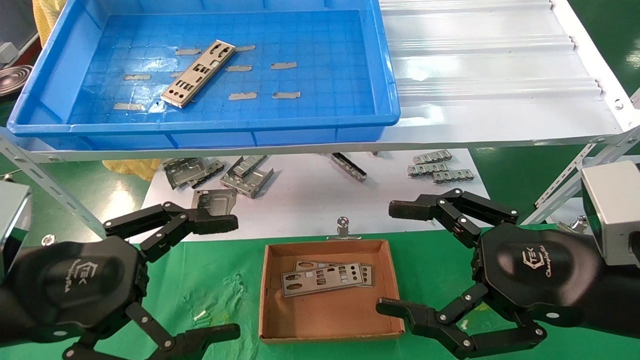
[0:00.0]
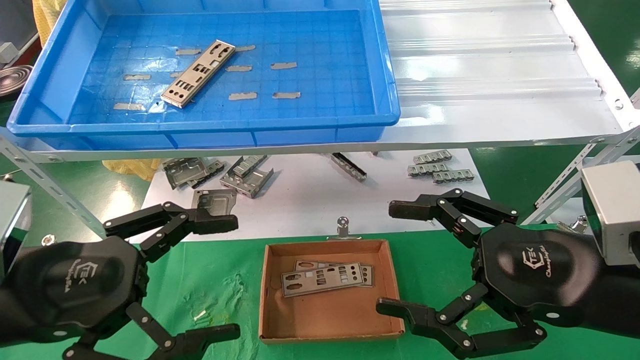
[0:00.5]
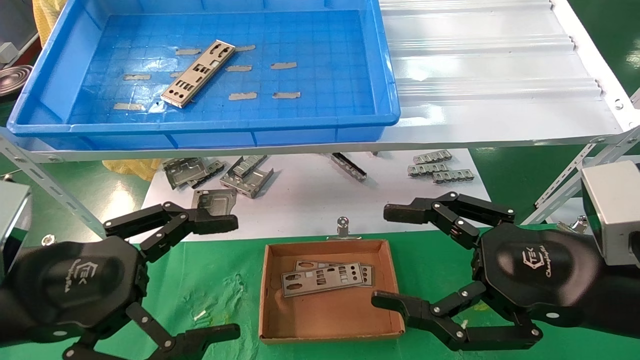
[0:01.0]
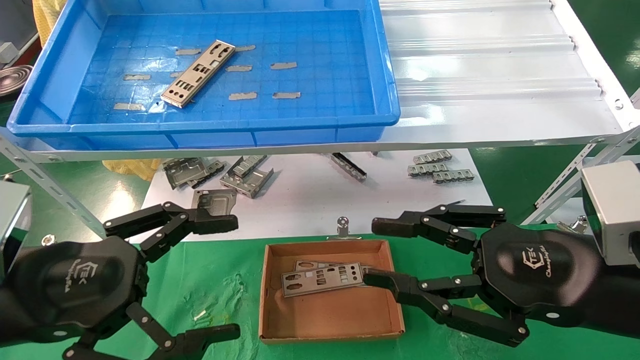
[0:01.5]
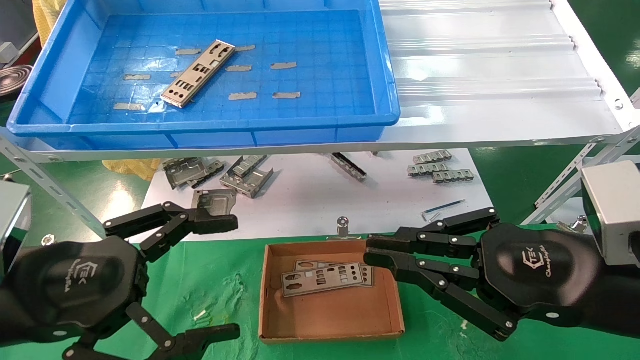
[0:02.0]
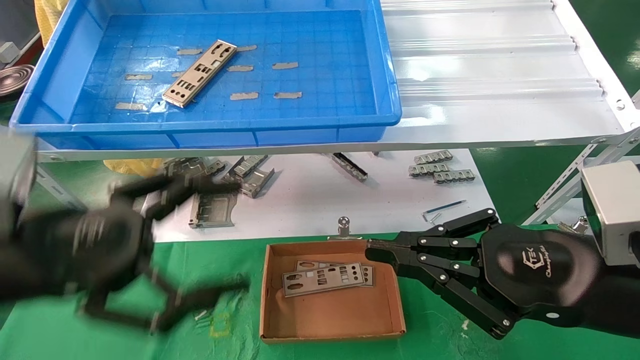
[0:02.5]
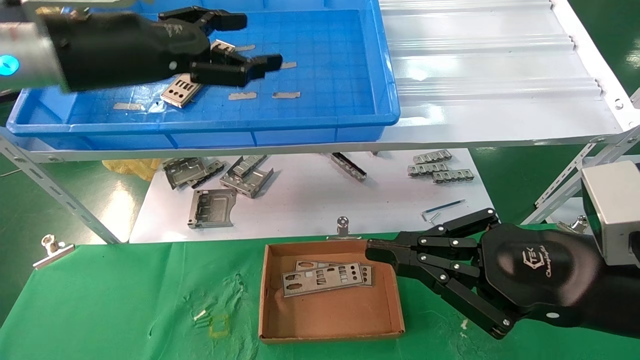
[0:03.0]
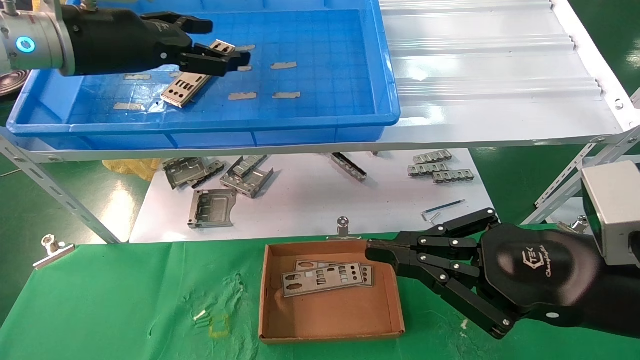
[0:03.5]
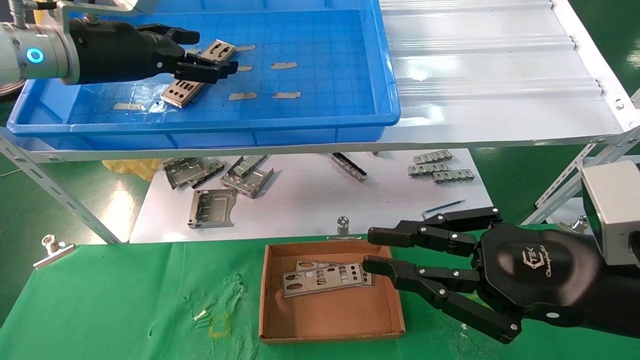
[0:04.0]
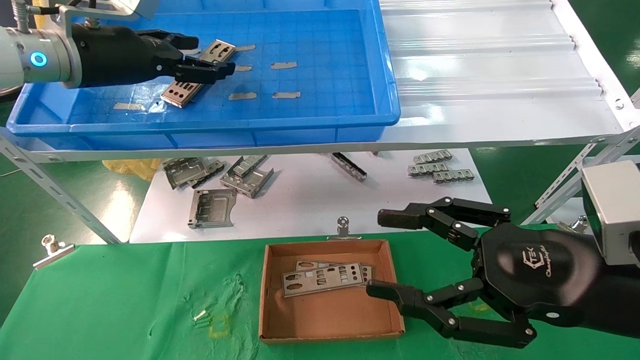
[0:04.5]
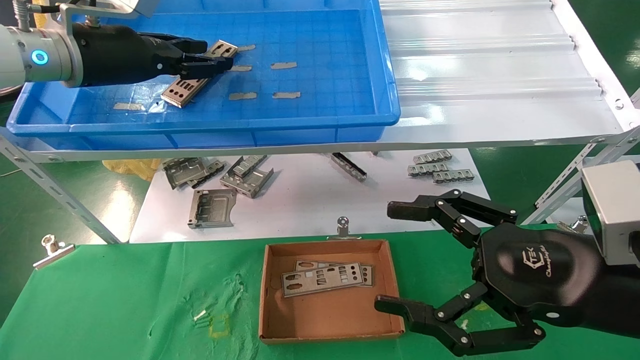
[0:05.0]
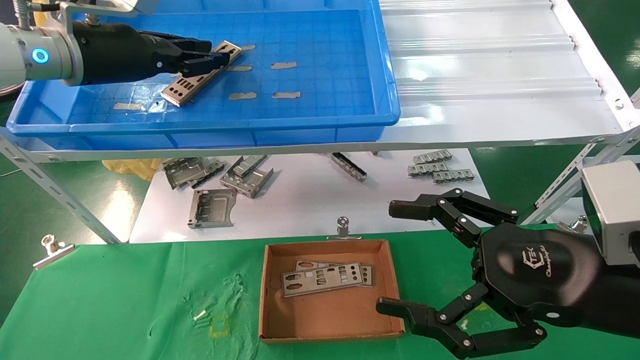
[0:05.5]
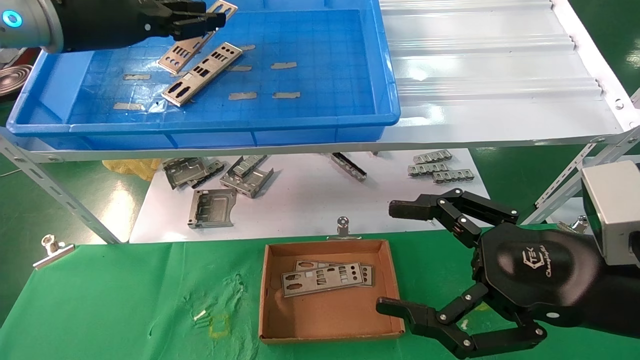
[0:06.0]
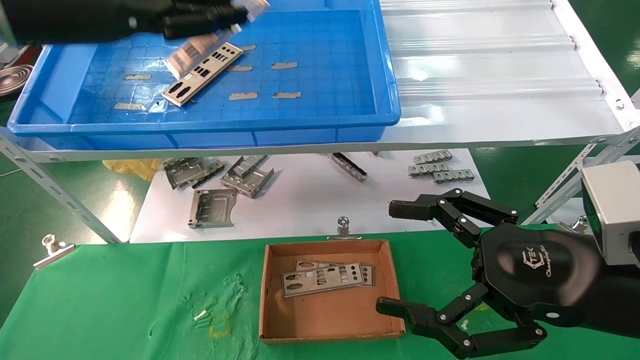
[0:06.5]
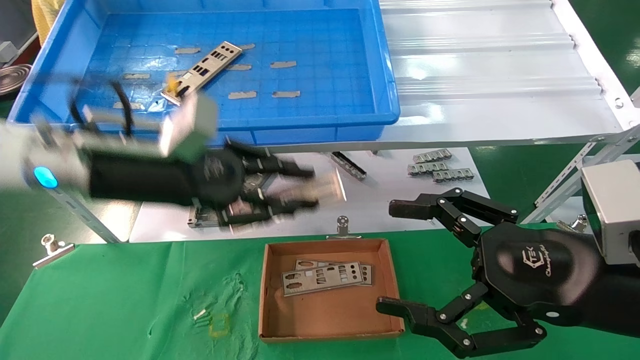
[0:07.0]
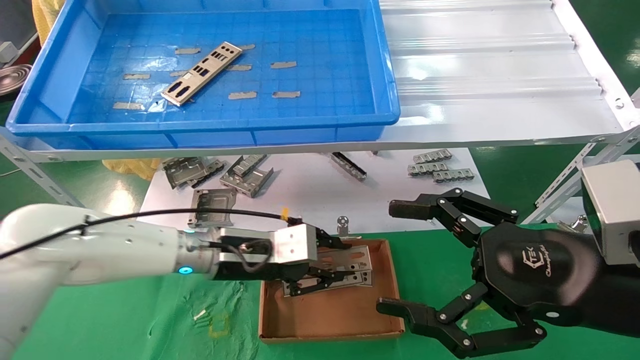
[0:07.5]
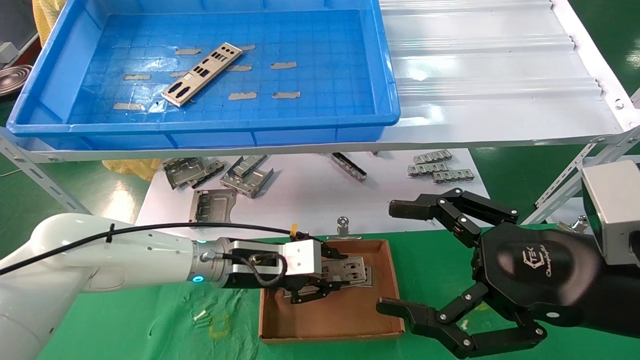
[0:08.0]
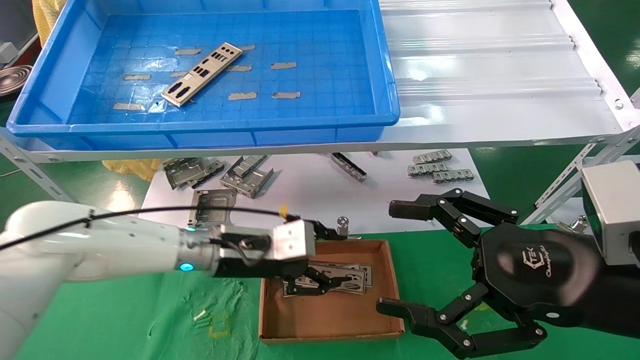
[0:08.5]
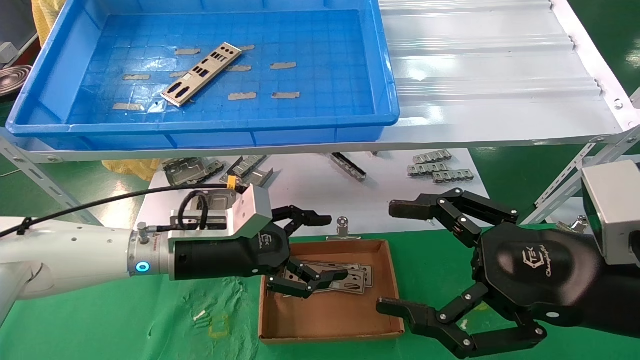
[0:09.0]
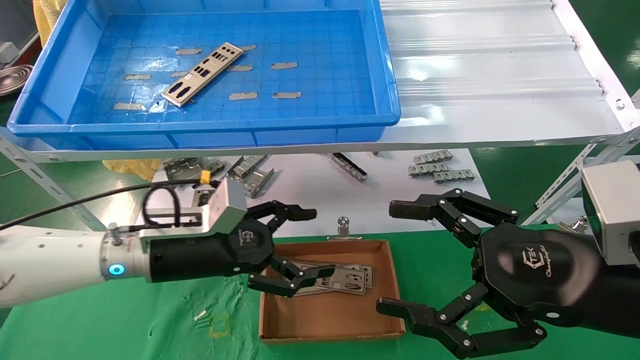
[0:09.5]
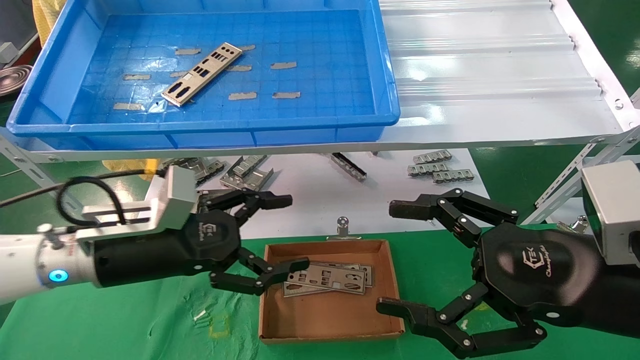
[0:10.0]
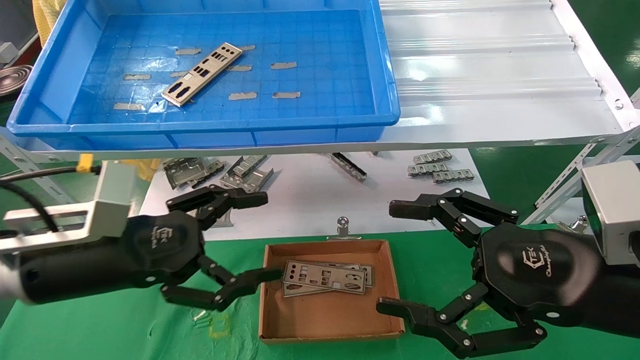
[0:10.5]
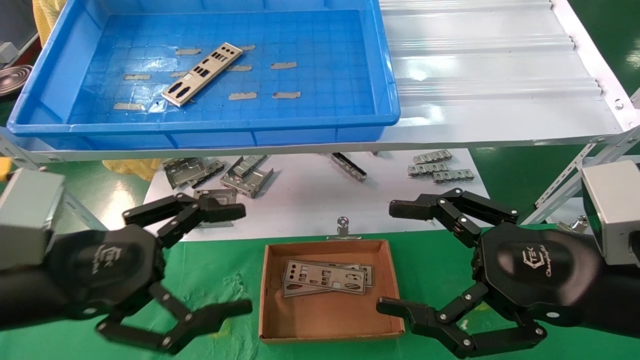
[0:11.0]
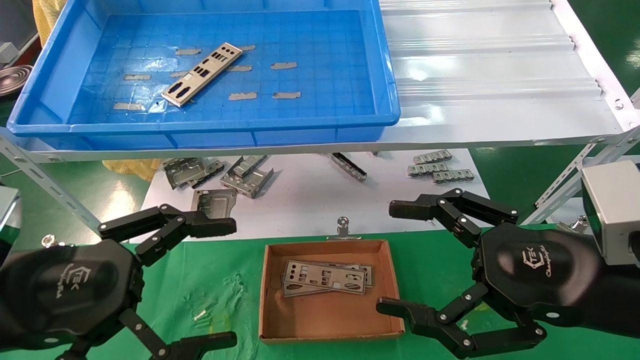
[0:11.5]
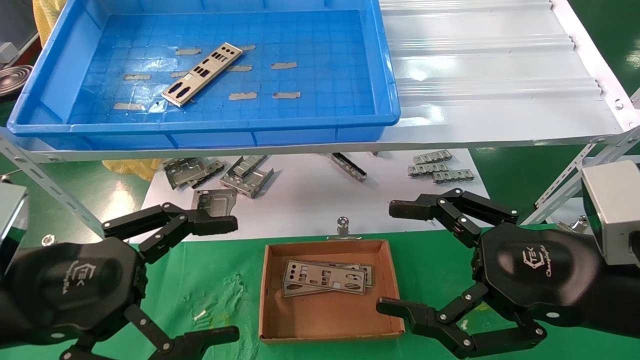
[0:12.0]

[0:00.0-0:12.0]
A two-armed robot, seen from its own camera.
Task of the whole recording: pick up the parts on the tray and put them in the cardboard box.
Step, 0:03.0 to 0:05.5: Pick up the IO bracket from the container box.
Step, 0:06.0 to 0:08.5: Place the IO bracket into the ingredient slot.
0:00.0 to 0:02.0: The right gripper closes its fingers.
0:02.0 to 0:04.0: The left gripper goes roughly 30 cm forward and upward.
0:04.0 to 0:06.0: The left gripper closes its fingers; the right gripper opens up.
0:06.0 to 0:08.0: The left gripper goes approximately 35 cm downward and to the right.
0:08.0 to 0:10.0: The left gripper is displaced to the left, backward and upward by some 15 cm, and opens up.
0:10.0 to 0:12.0: The left gripper heads backward and to the left, covering roughly 15 cm.

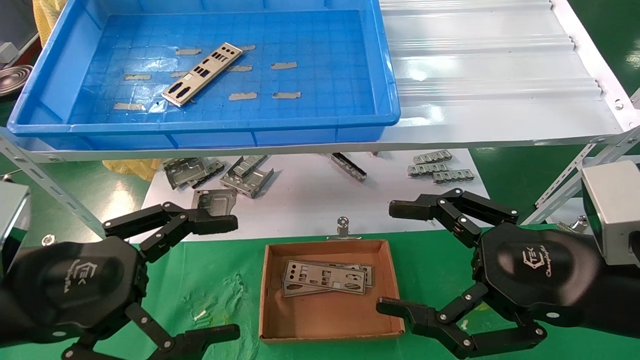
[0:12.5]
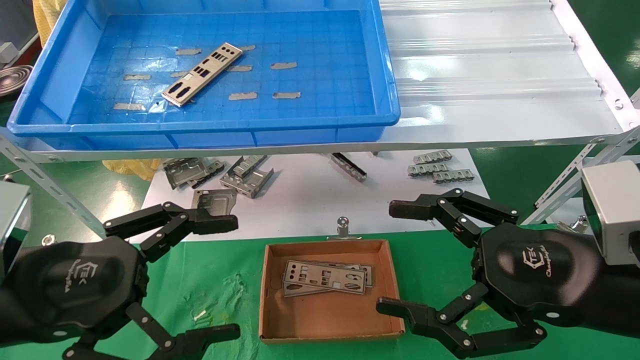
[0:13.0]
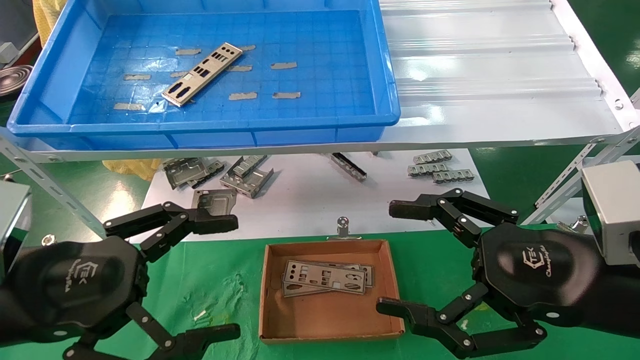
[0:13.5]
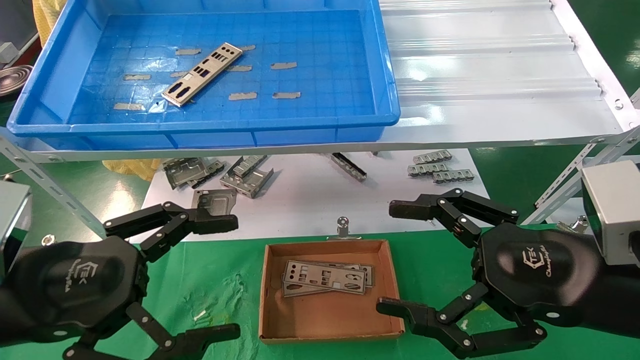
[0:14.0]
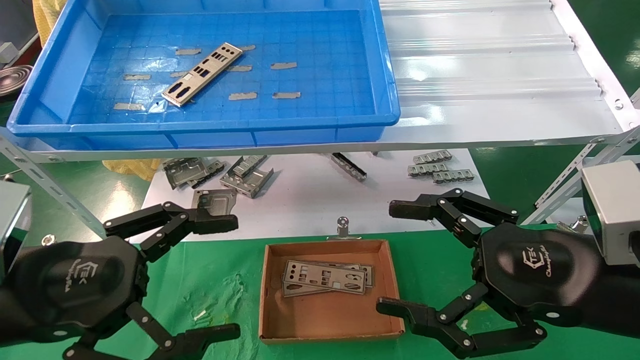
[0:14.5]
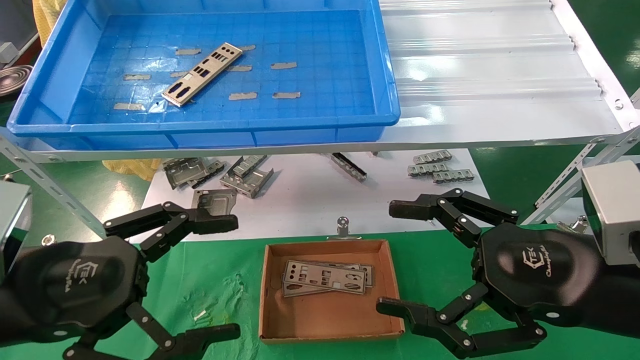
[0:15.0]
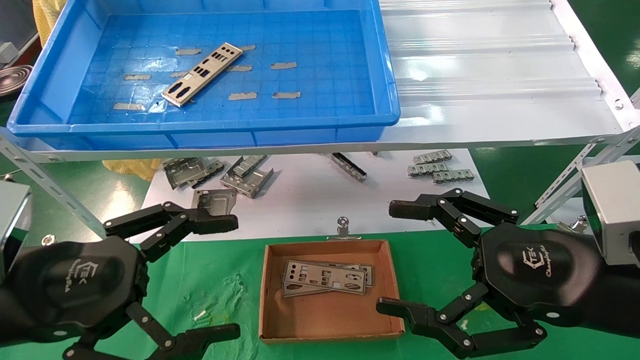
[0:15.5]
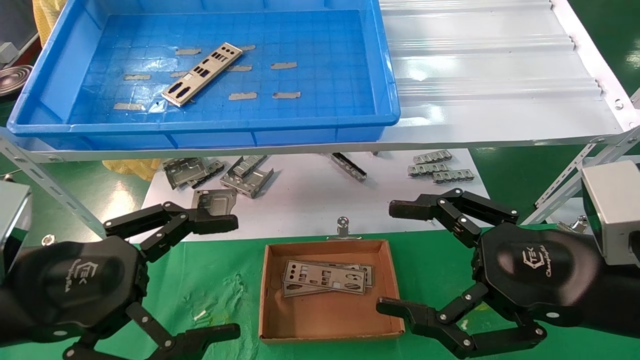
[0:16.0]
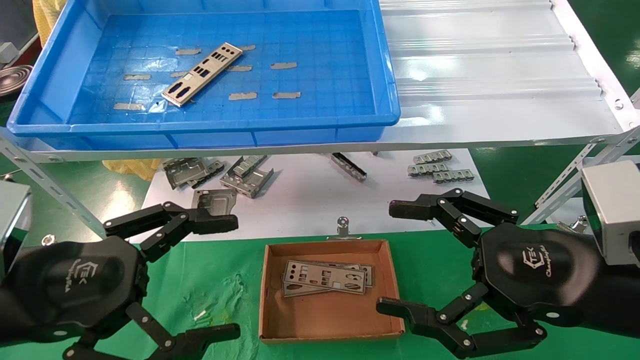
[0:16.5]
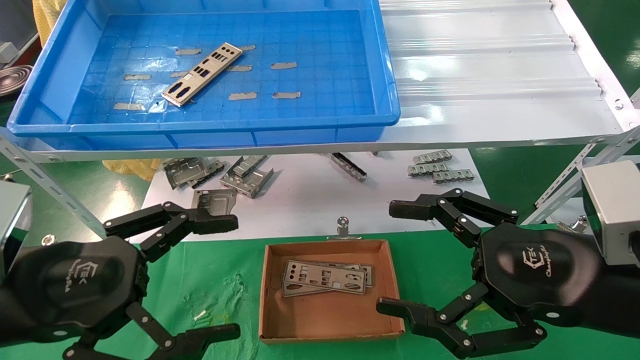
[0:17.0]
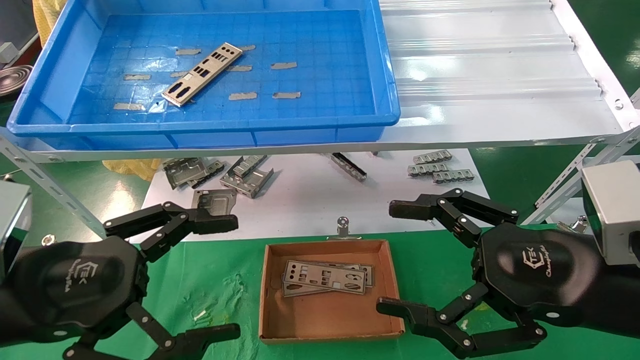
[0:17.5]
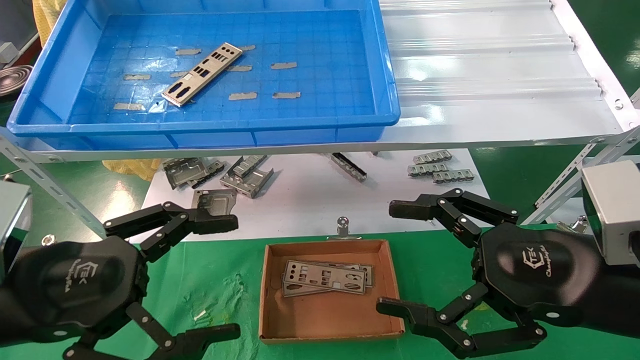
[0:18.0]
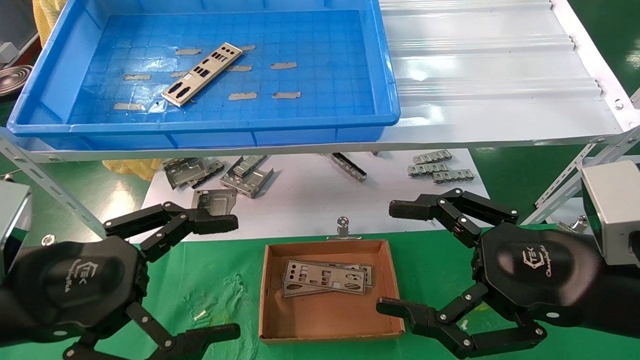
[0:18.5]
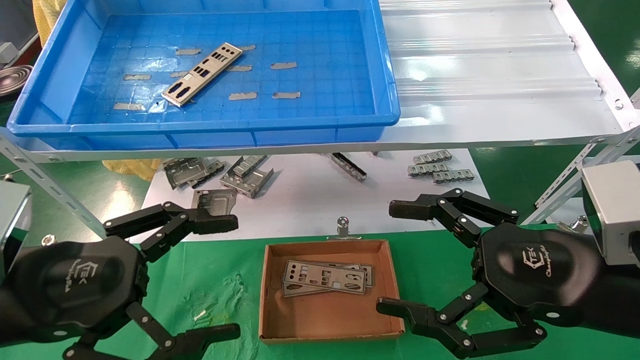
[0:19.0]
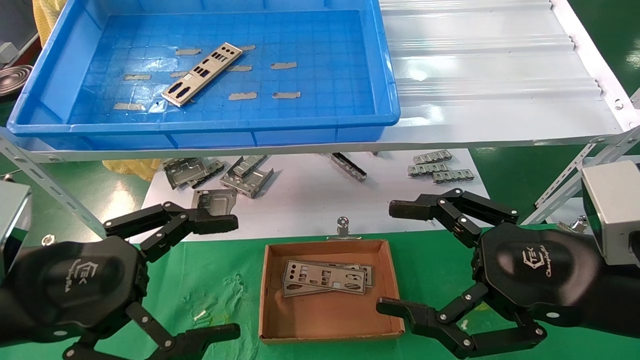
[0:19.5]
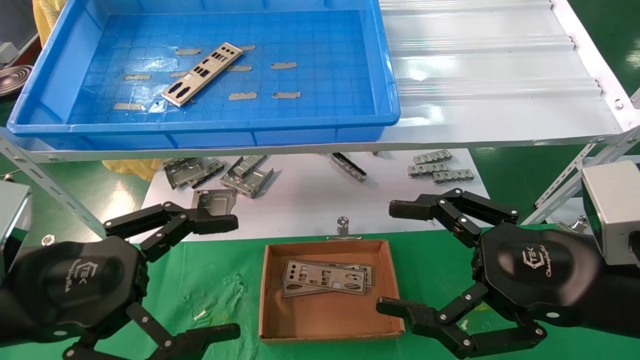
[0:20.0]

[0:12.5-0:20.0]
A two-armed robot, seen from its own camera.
Task of the whole recording: pick up the parts on the tray and put them in the cardboard box.
0:12.5 to 0:20.0: Both grippers stay put.
